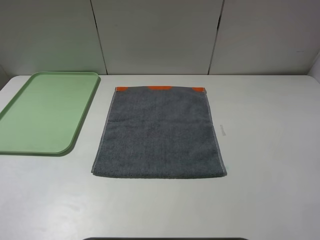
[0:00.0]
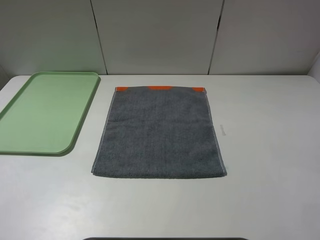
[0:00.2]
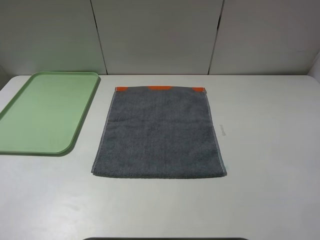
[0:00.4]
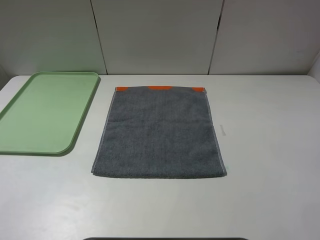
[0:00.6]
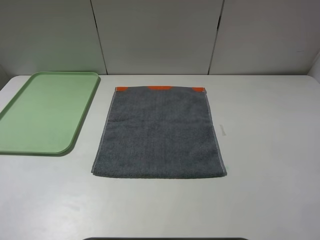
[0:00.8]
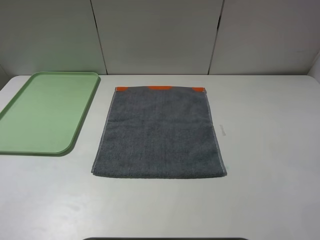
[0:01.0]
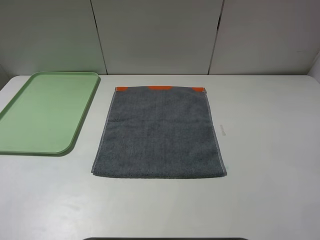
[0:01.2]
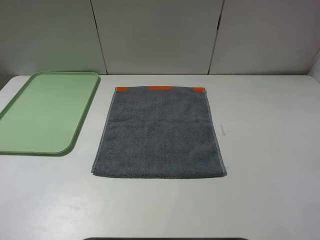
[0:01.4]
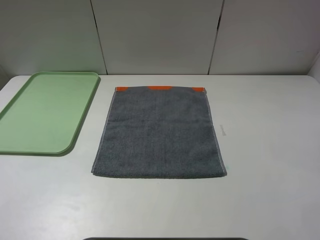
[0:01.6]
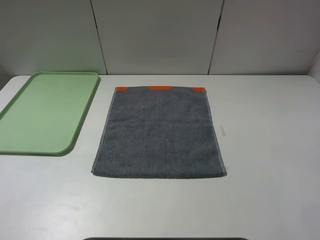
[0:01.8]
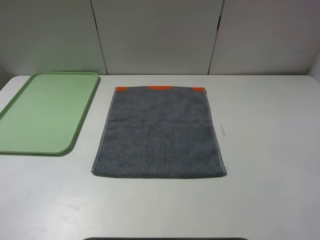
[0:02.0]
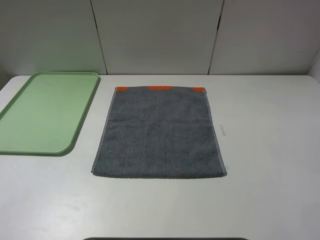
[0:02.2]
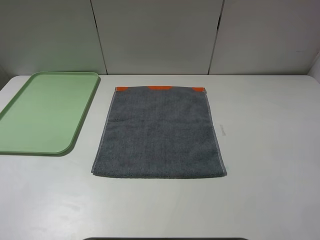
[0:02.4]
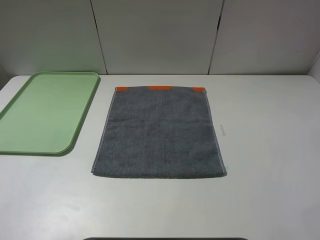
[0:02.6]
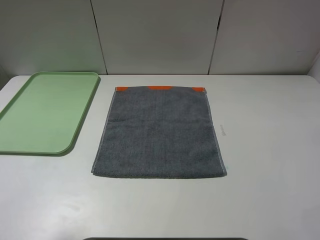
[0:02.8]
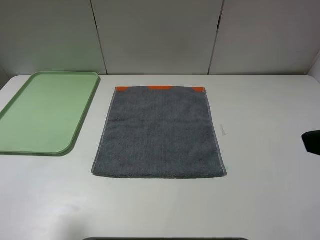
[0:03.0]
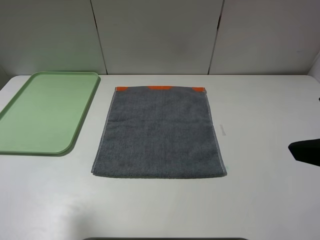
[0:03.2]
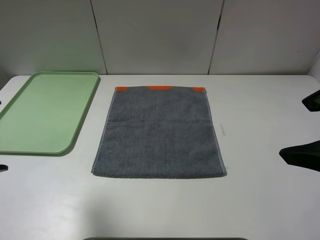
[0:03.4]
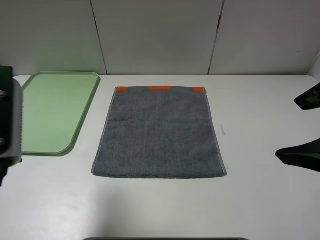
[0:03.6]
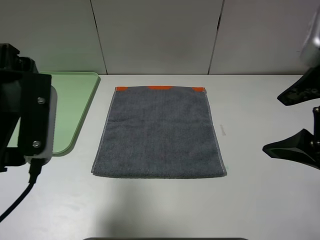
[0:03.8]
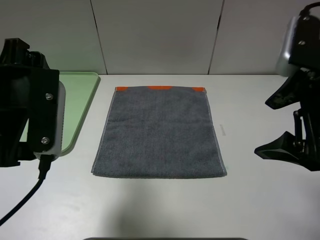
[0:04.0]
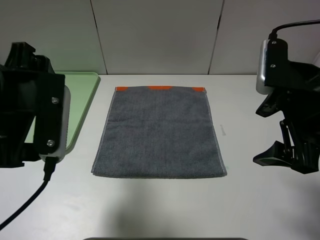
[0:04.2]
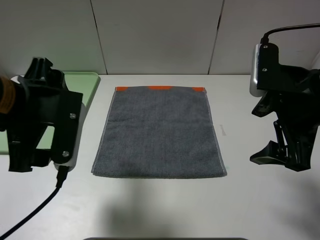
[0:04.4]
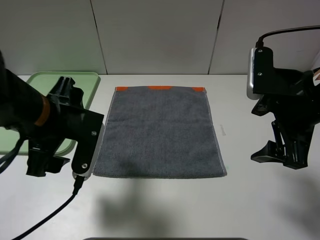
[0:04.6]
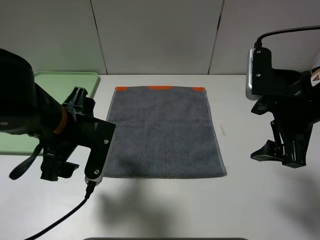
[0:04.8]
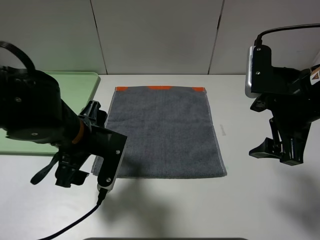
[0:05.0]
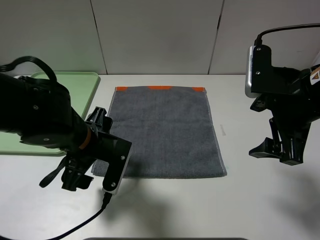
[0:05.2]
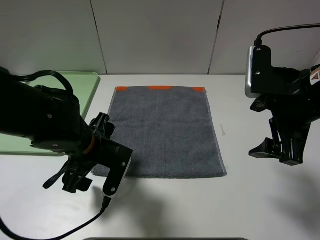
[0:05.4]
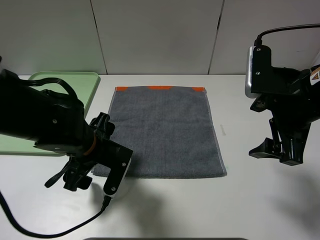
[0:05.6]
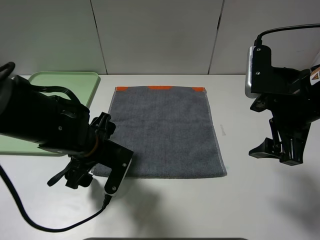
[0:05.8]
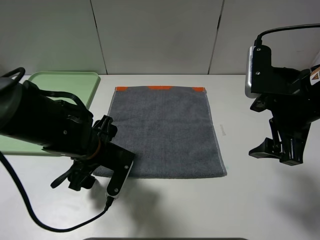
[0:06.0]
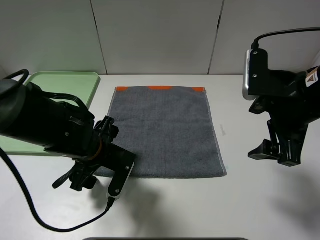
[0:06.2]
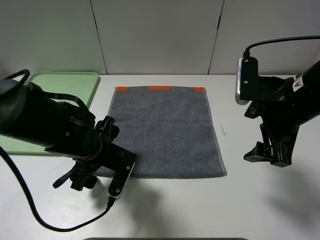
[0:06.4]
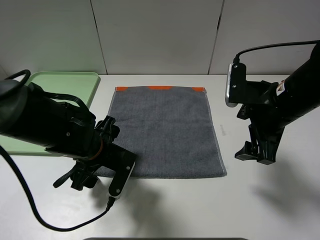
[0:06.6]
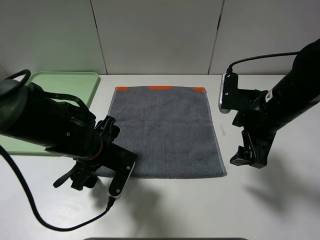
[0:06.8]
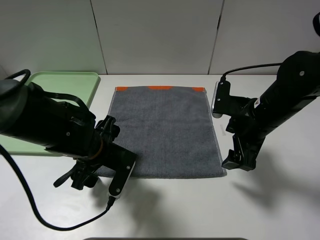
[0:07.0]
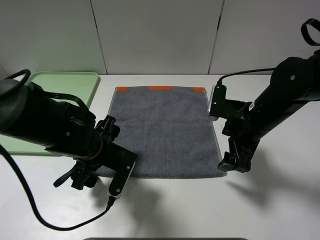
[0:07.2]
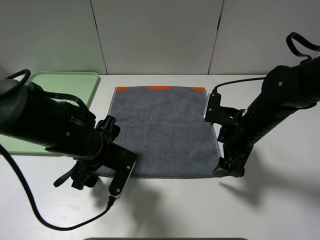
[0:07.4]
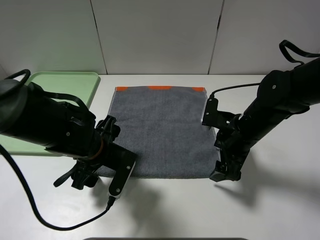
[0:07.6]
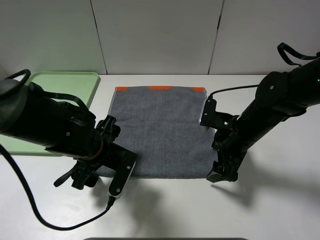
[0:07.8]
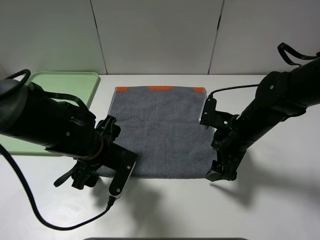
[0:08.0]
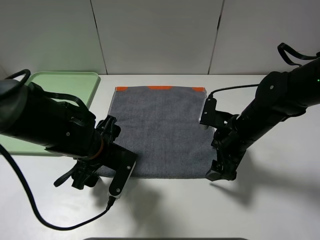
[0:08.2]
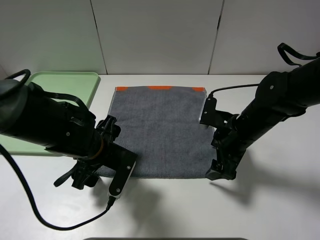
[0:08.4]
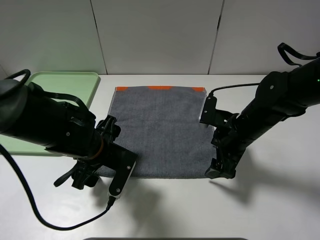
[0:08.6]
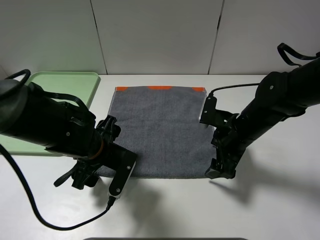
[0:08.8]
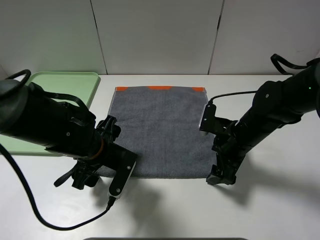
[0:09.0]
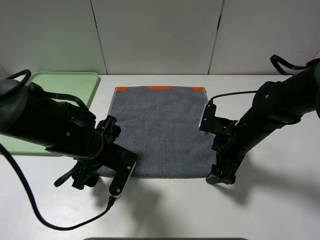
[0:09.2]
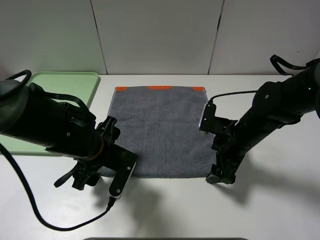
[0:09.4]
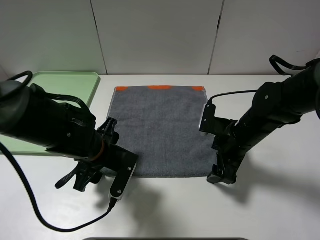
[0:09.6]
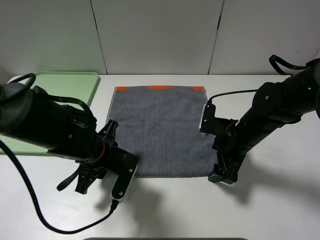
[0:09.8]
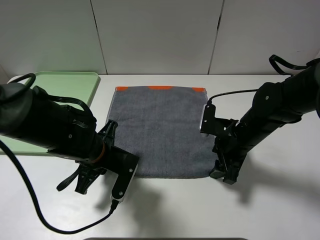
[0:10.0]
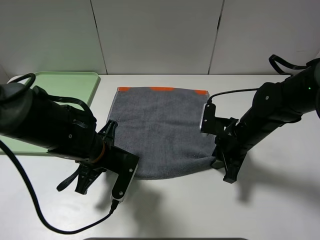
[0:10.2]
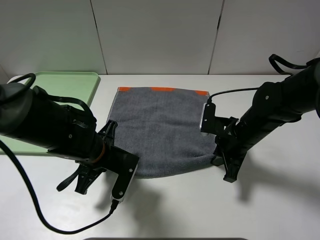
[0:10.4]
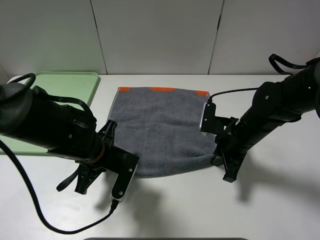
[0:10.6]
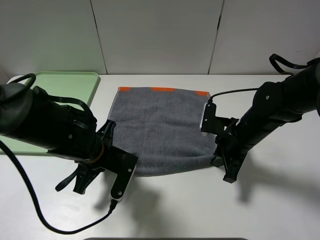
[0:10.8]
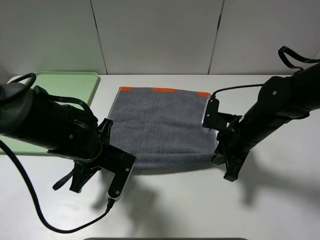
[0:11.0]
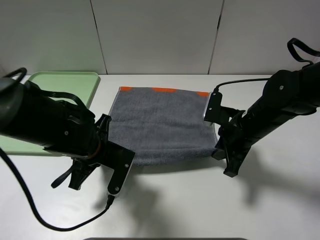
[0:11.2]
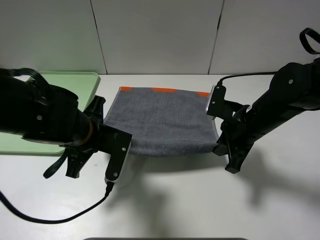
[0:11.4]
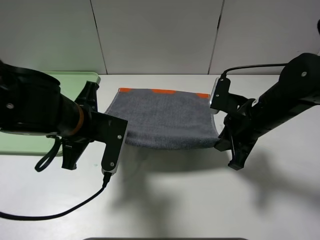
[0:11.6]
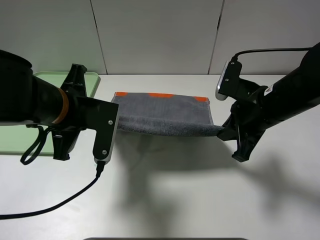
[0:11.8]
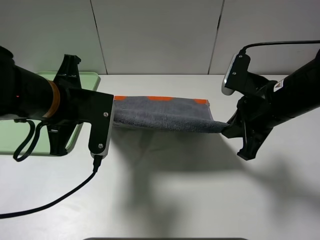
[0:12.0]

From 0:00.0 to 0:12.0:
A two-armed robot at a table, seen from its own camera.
From 0:00.0 to 0:01.6: Both grippers stay put.
From 0:01.6 to 0:03.0: The left gripper shifts approximately 10 cm forward.
From 0:03.0 to 0:04.4: The left gripper is displaced to the right, forward and downward by some 15 cm. Meanwhile the right gripper travels forward and downward by some 15 cm.
From 0:04.4 to 0:06.0: The left gripper shifts about 15 cm downward.
From 0:06.0 to 0:07.6: The right gripper shifts approximately 15 cm downward.
From 0:07.6 to 0:09.0: The grippers stay close to where they were, moving slightly.
From 0:09.0 to 0:10.4: The right gripper closes. Meanwhile the left gripper closes.
From 0:10.4 to 0:12.0: Both grippers travel together upward, about 15 cm.

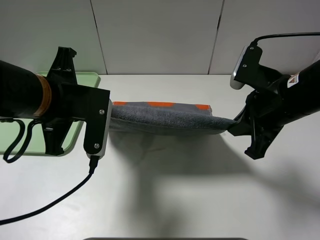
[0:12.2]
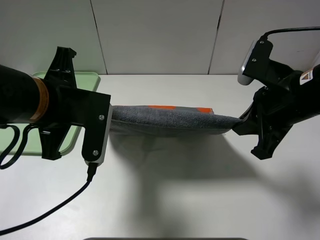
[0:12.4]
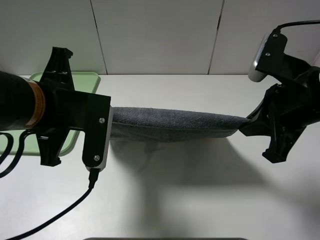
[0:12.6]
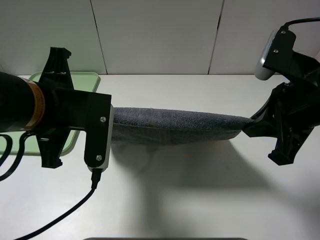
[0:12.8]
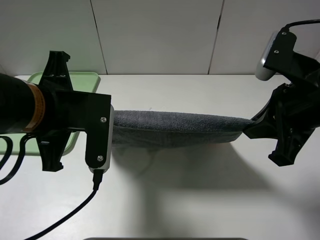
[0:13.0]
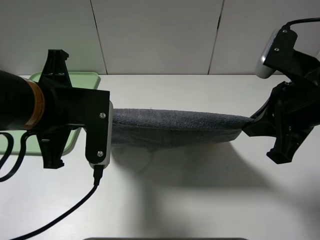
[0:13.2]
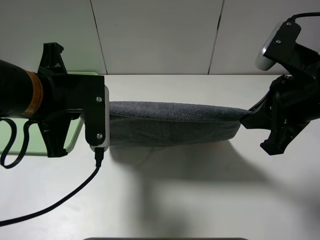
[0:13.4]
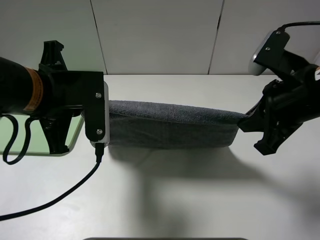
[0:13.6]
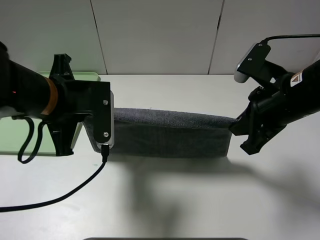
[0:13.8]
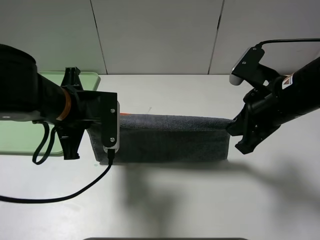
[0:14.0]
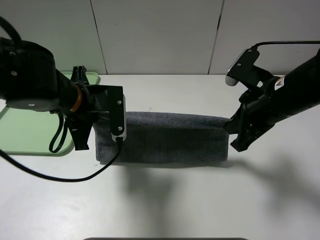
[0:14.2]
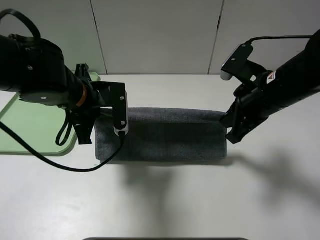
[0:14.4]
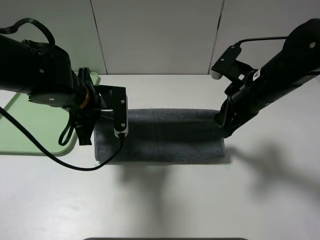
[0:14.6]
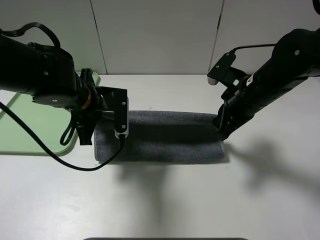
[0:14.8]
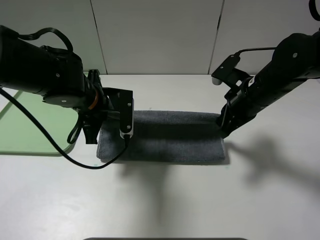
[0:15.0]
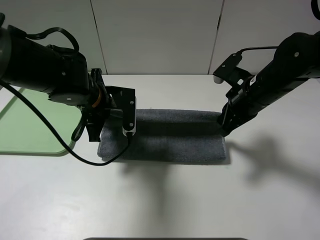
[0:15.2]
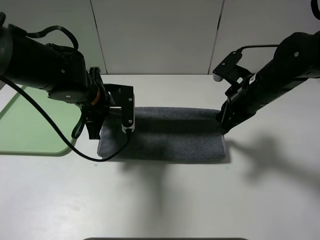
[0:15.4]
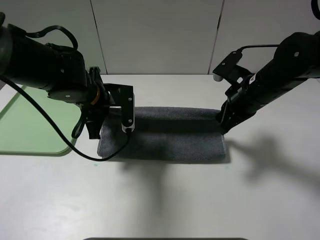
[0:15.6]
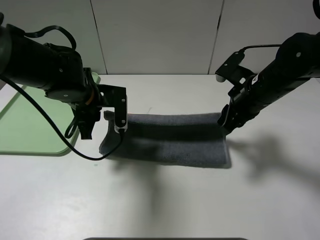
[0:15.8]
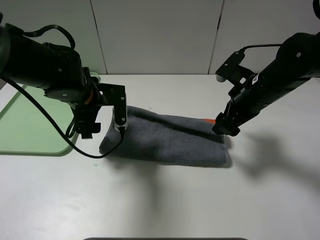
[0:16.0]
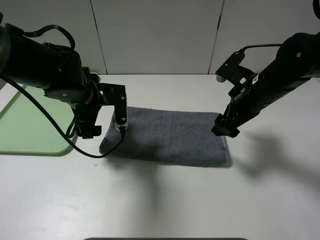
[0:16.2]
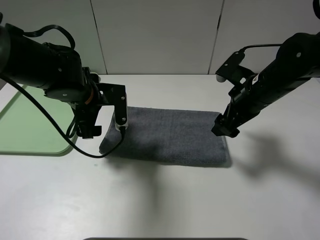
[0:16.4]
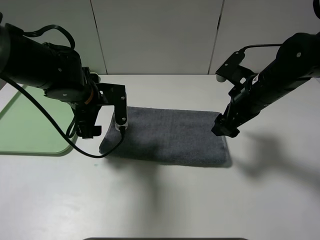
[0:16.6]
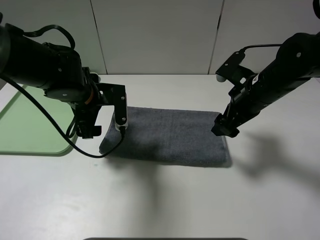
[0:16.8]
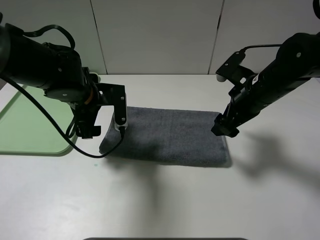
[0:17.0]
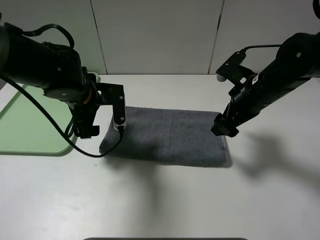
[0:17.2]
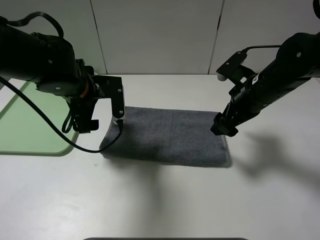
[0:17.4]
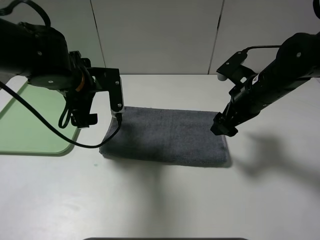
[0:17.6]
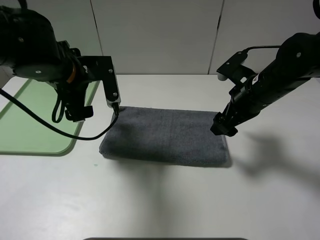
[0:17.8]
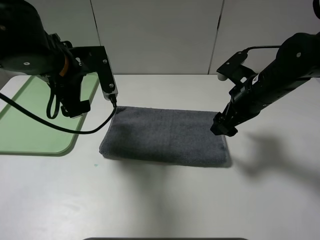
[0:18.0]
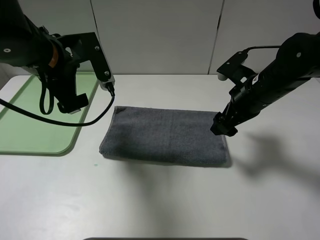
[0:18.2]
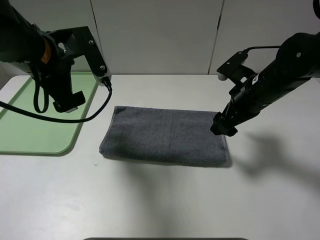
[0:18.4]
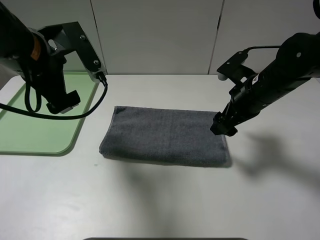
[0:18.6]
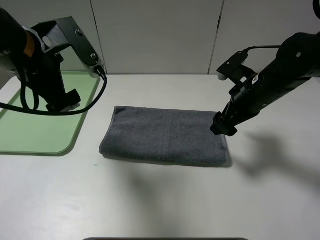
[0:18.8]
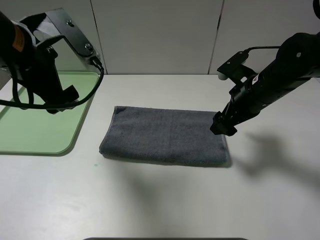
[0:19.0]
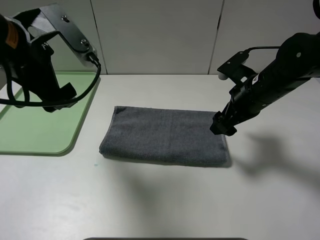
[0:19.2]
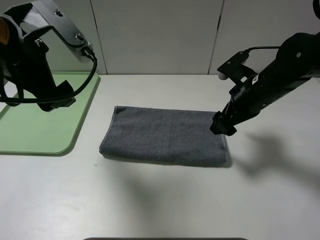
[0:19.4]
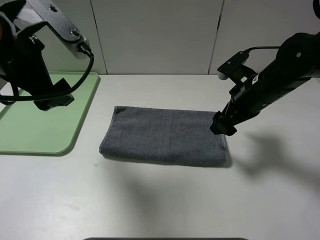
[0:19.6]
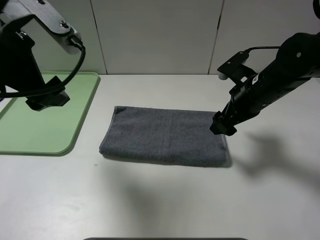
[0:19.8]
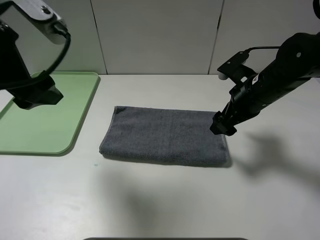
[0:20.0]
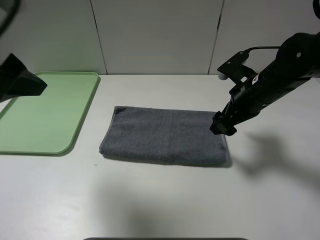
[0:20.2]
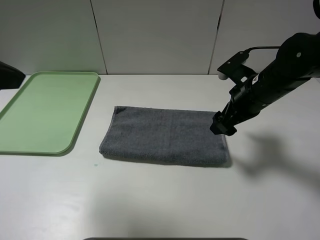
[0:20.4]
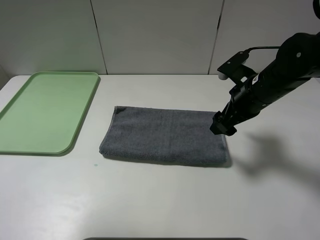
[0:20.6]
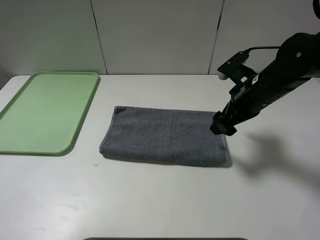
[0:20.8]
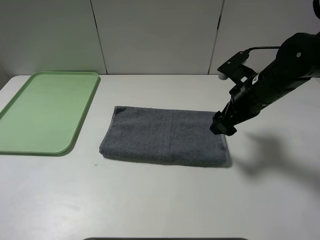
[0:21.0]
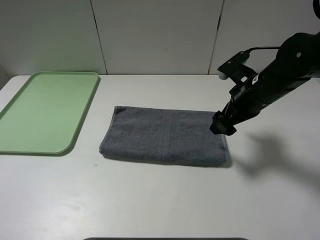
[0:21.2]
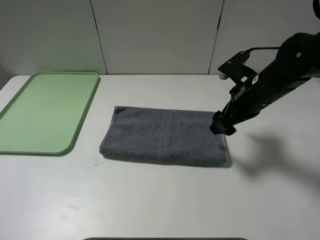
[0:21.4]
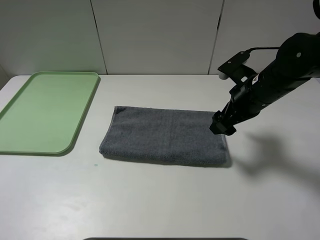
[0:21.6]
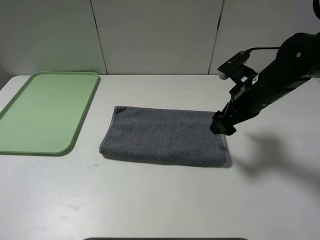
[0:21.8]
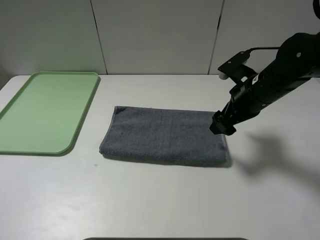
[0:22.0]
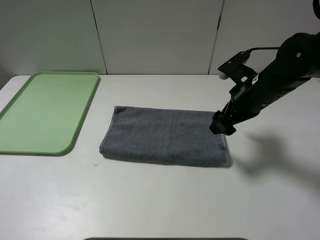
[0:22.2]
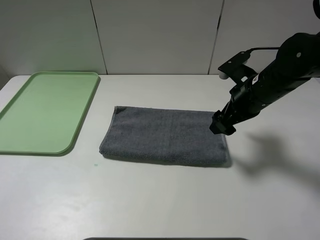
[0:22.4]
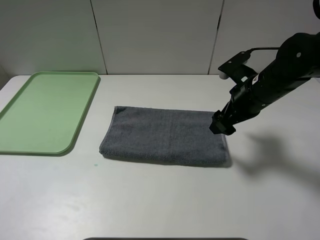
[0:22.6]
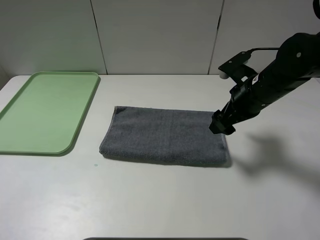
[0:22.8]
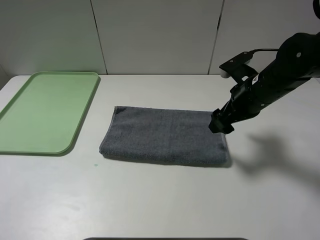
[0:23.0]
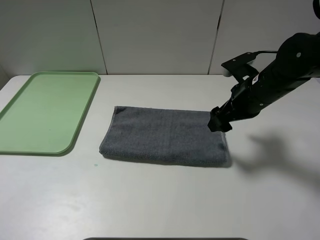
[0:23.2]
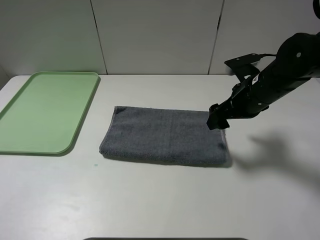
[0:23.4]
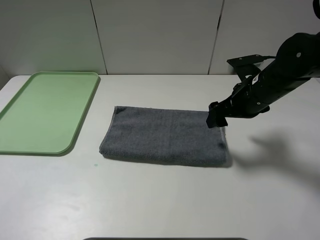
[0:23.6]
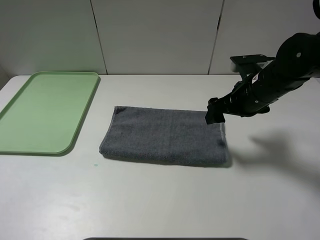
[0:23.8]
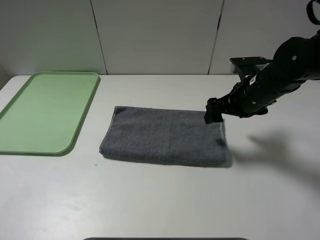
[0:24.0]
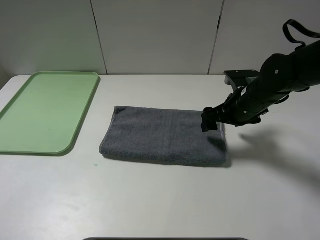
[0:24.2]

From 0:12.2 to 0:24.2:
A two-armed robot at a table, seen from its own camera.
Step, from 0:12.2 to 0:16.2: Fold the grey towel upwards.
From 0:12.2 to 0:13.8: The grippers stay close to where they were, moving slightly.
From 0:13.8 to 0:15.2: The two grippers go some 10 cm forward and downward.
From 0:15.2 to 0:16.6: The right gripper opens; the left gripper opens.
From 0:16.6 to 0:18.2: The left gripper heads upward, covering approximately 10 cm.
From 0:18.2 to 0:19.8: The left gripper travels upward and backward by approximately 10 cm.
From 0:19.8 to 0:21.2: The left gripper shifts roughly 20 cm backward and to the left.
